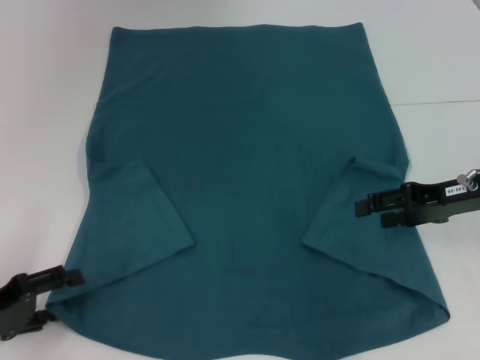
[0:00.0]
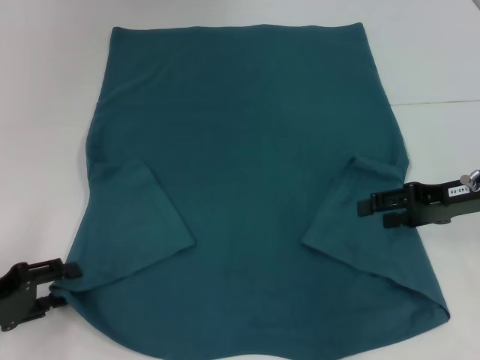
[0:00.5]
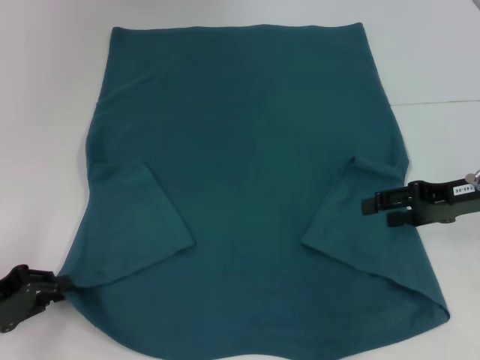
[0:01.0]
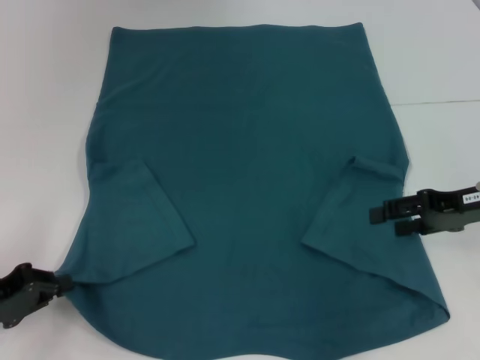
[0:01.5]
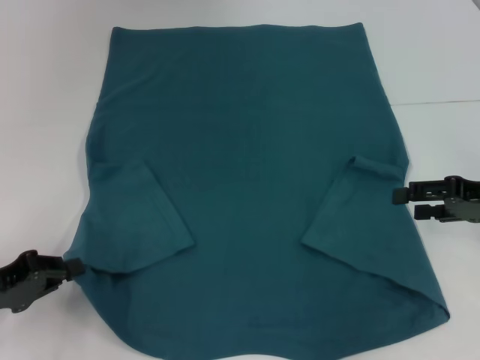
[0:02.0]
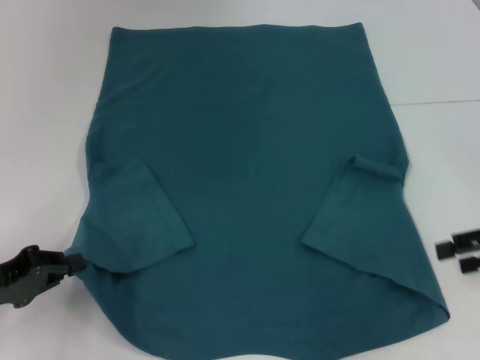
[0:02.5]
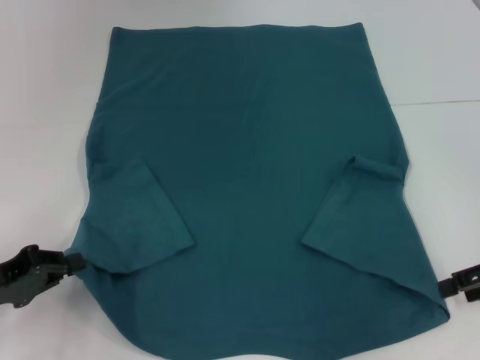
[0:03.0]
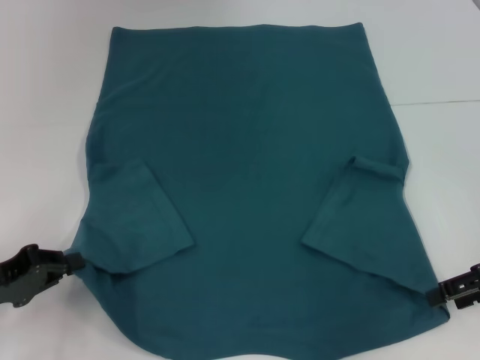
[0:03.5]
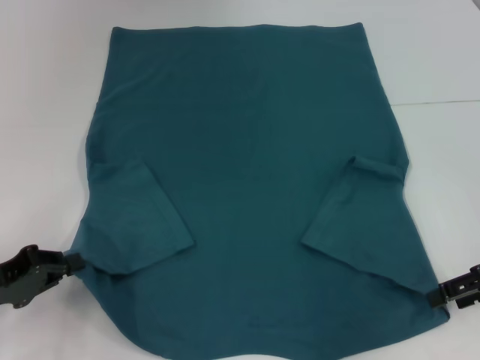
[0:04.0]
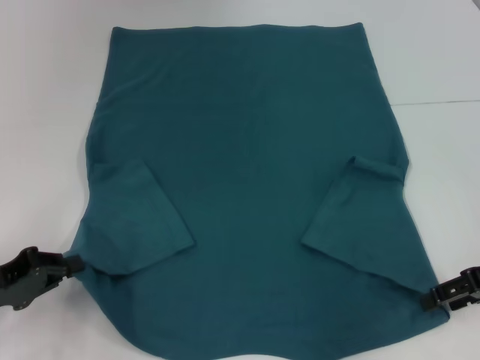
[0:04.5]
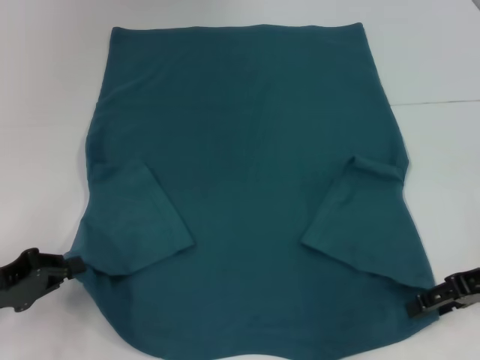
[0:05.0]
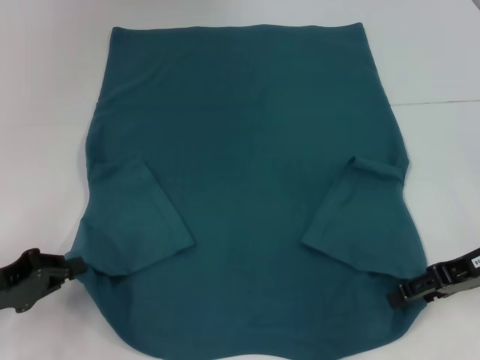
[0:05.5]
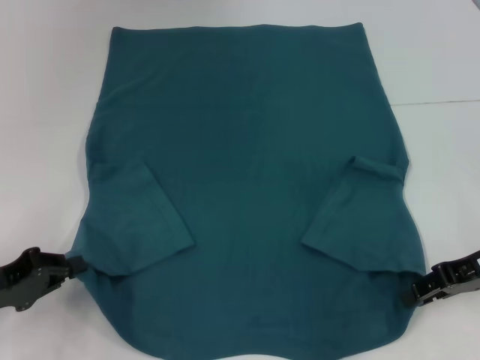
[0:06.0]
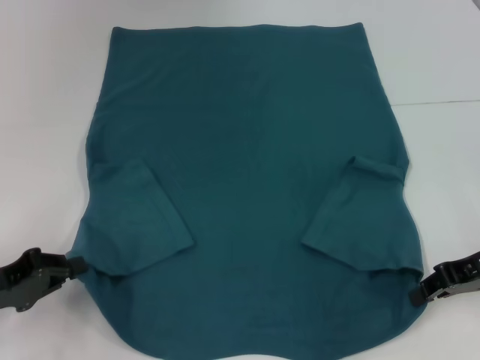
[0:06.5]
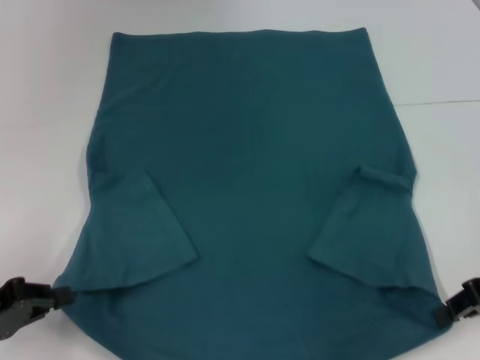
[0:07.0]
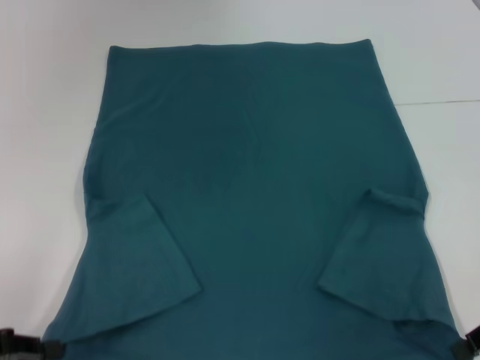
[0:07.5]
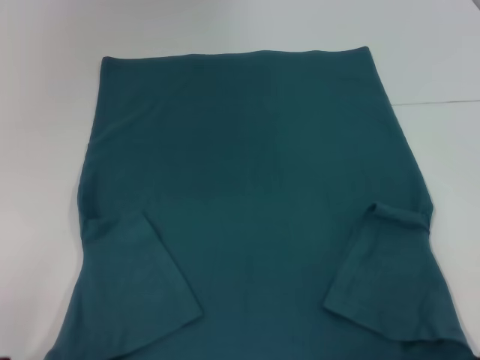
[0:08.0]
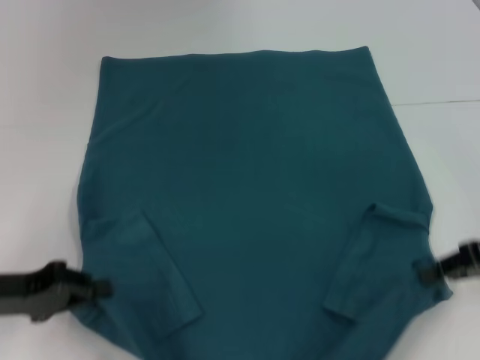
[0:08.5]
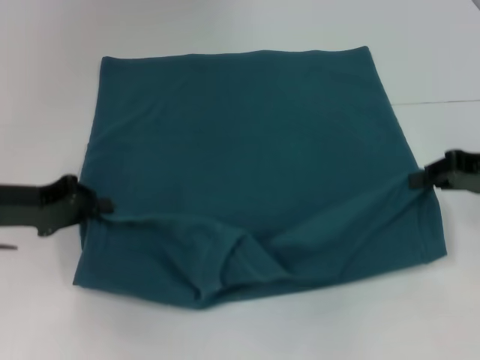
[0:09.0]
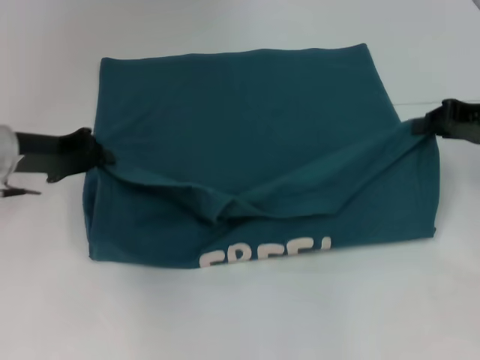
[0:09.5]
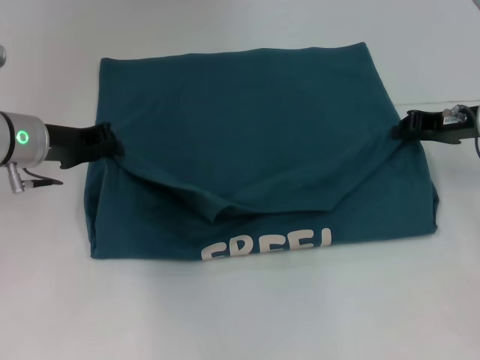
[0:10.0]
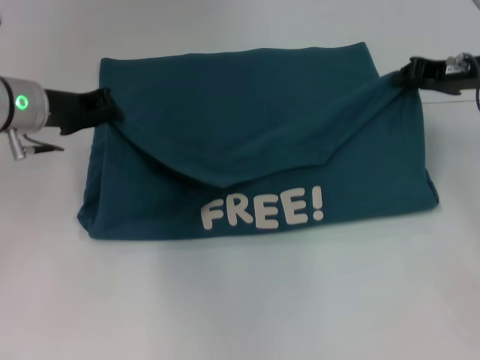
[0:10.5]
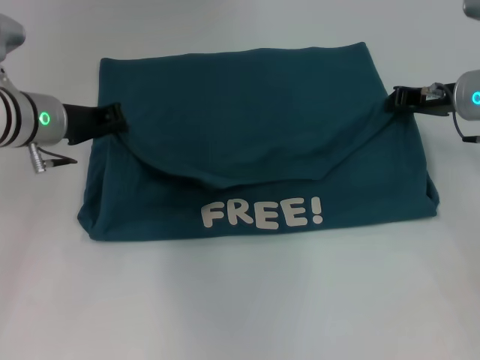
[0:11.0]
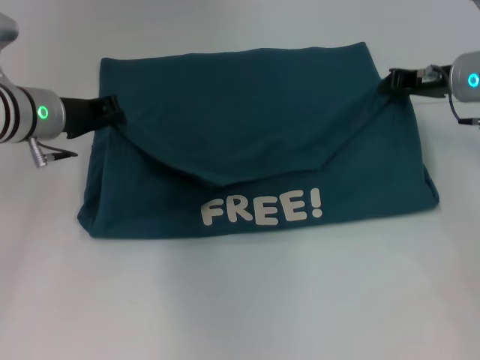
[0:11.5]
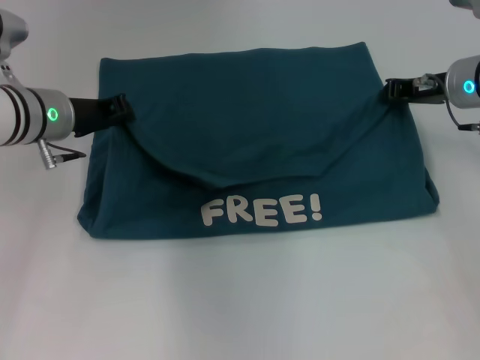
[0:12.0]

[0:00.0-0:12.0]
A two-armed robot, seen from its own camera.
Step, 0:01.5 to 0:06.5: Grab the bottom right corner with your right hand.
0:00.0 to 0:02.0: The left gripper closes up.
0:04.0 to 0:06.0: The right gripper closes its fingers.
0:06.0 to 0:08.0: Both grippers move backward, some 5 cm. The right gripper closes its fingers.
0:08.0 to 0:10.0: The right gripper moves forward, approximately 15 cm. Meanwhile the left gripper moves forward and to the right, about 25 cm.
0:10.0 to 0:12.0: The right gripper changes place by roughly 5 cm.

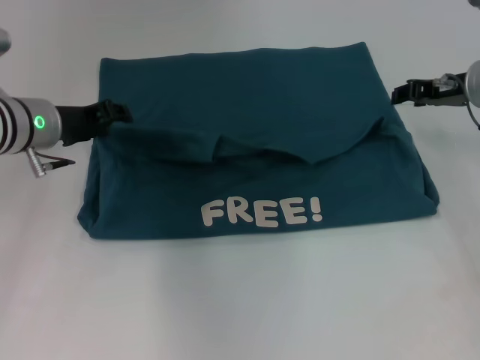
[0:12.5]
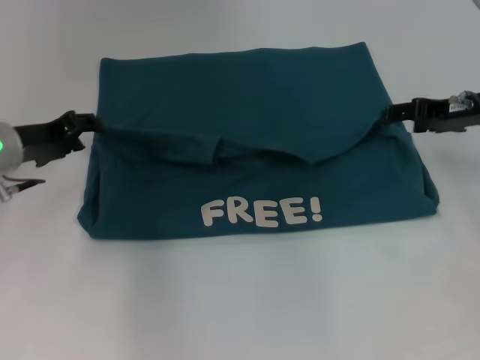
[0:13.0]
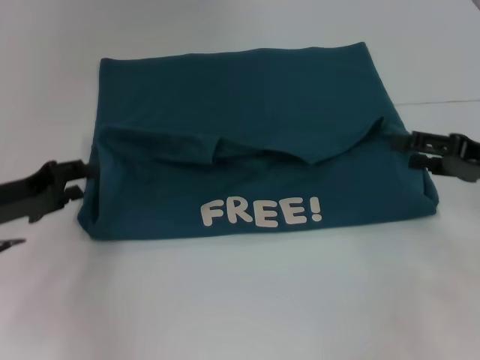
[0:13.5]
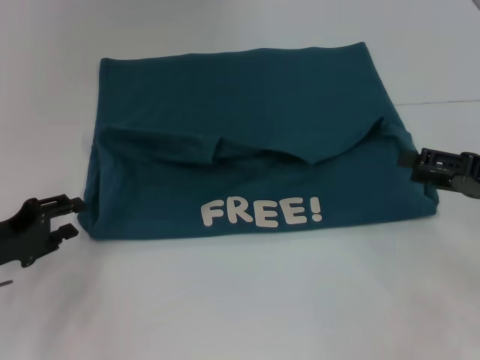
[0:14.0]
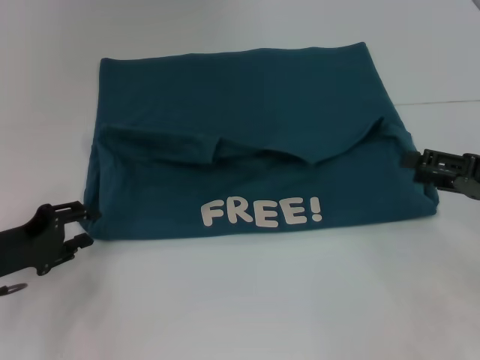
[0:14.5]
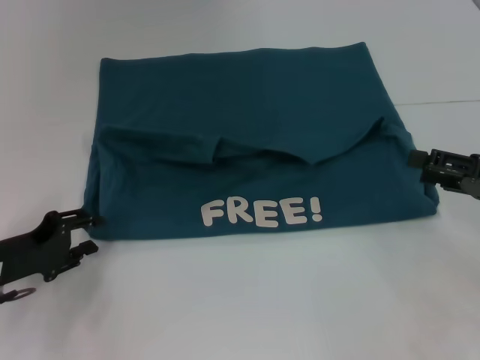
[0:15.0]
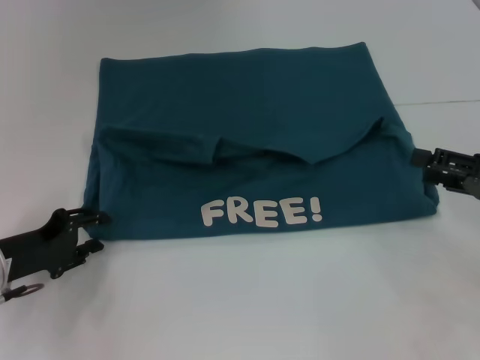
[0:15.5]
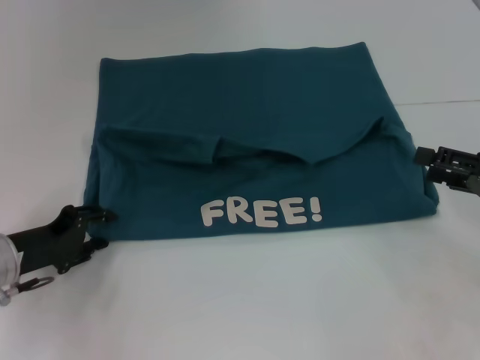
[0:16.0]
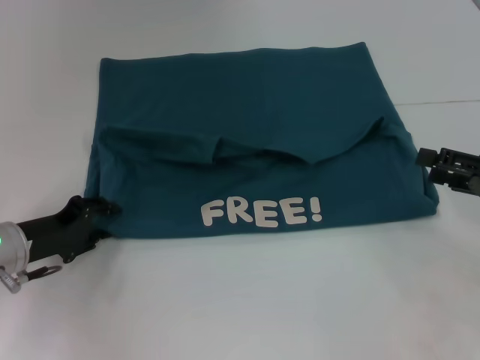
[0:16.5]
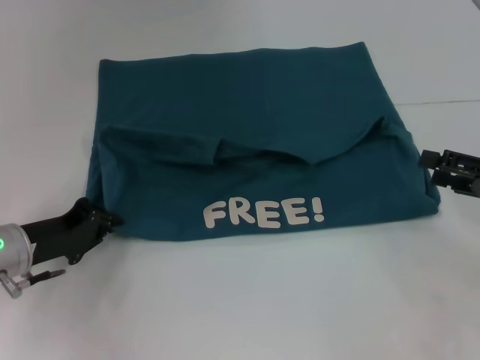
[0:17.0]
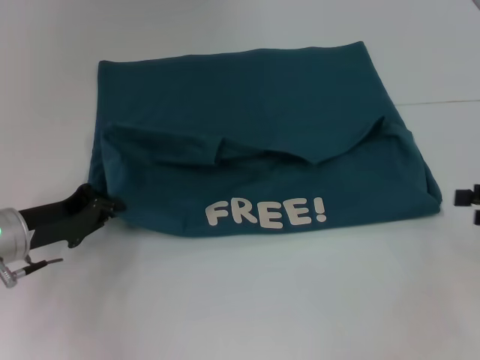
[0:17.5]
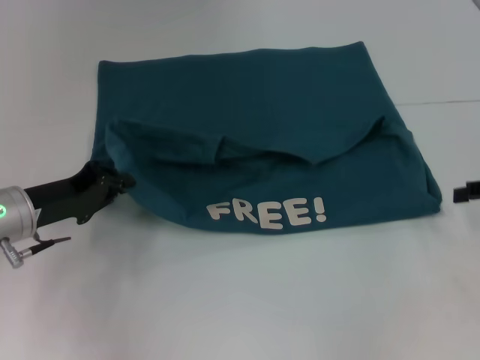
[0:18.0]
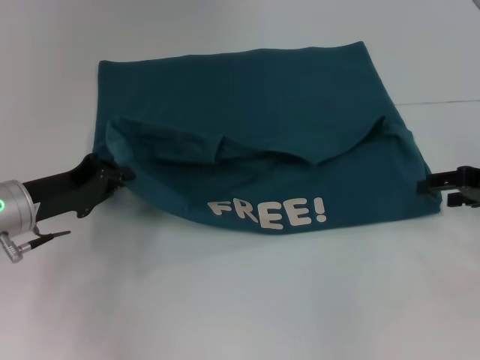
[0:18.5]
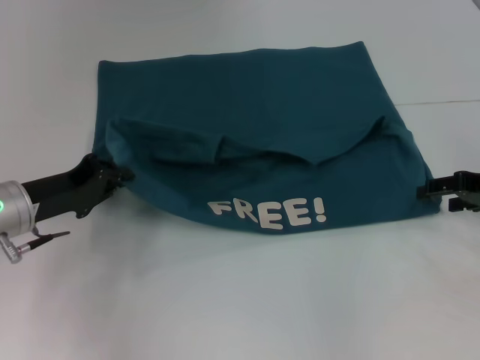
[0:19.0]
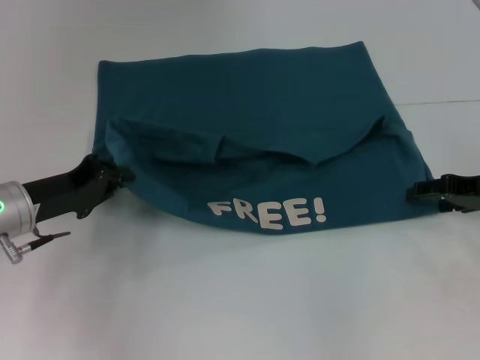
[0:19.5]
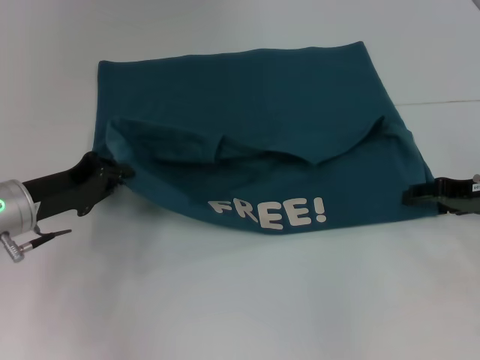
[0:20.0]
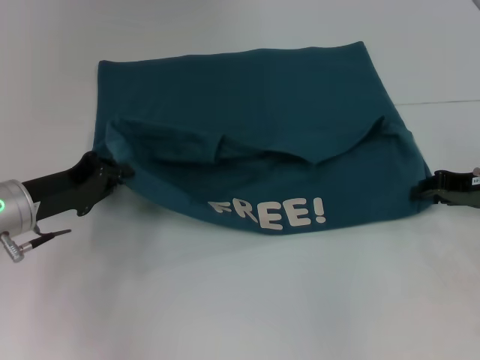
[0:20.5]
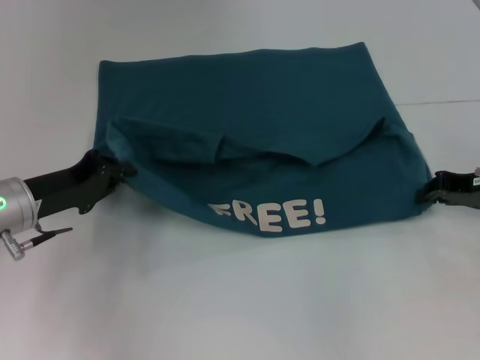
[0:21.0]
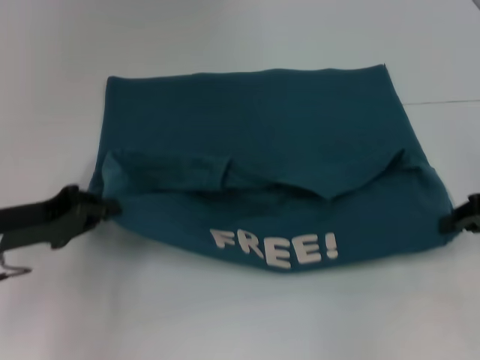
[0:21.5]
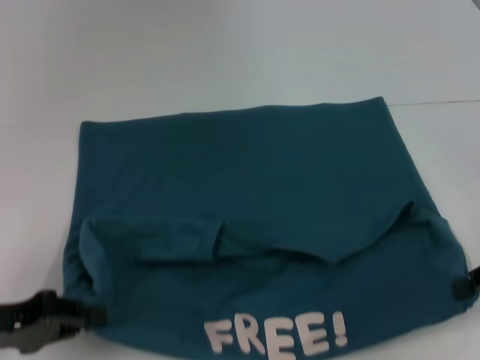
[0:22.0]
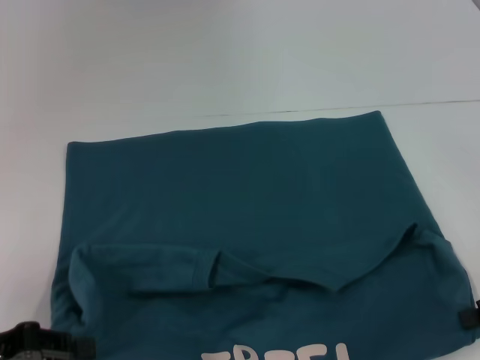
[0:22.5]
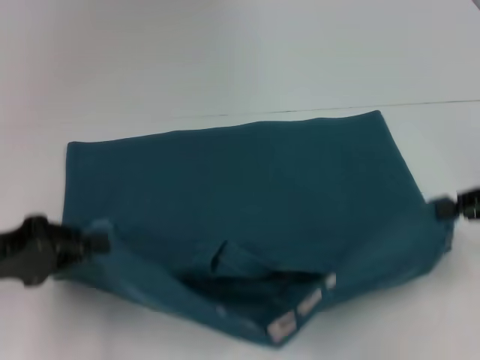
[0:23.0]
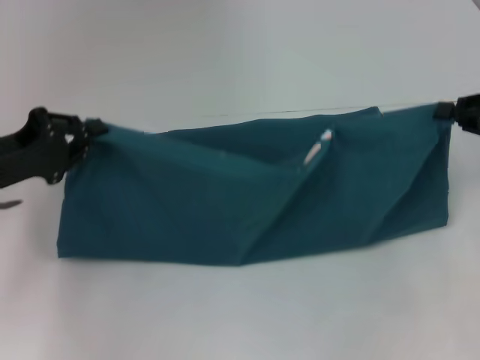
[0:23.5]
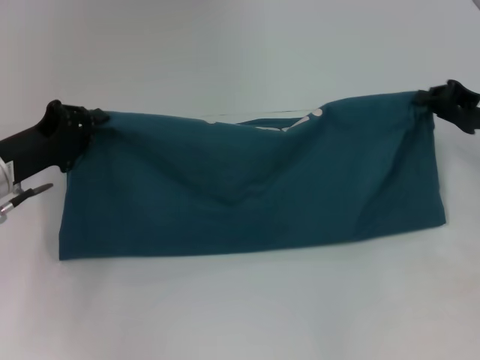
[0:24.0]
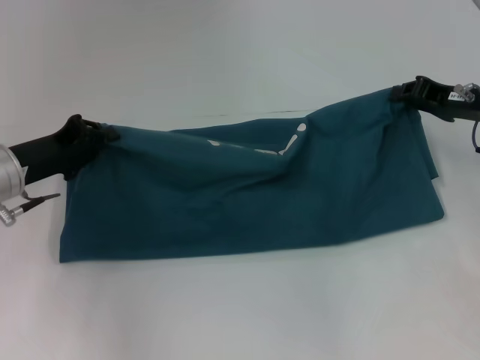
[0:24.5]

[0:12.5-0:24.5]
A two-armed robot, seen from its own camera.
Step, 0:13.0 to 0:22.0: Pull the clothes with your left hand.
Step, 0:13.0 to 0:22.0: Pull the clothes with your right hand.
0:12.5 to 0:14.5: The right gripper goes approximately 15 cm backward, and opens up, while the left gripper heads backward, to the left and downward, covering about 15 cm.
0:14.5 to 0:16.5: There are only small adjustments of the grippers.
0:16.5 to 0:18.5: The right gripper shifts approximately 5 cm forward. The left gripper closes up.
0:18.5 to 0:20.5: There are only small adjustments of the grippers.
0:20.5 to 0:22.5: The right gripper goes some 10 cm backward, and closes. Meanwhile the left gripper travels backward and to the left by some 15 cm.
0:22.5 to 0:24.5: The right gripper travels forward and to the left by about 15 cm. The left gripper travels forward by roughly 15 cm.

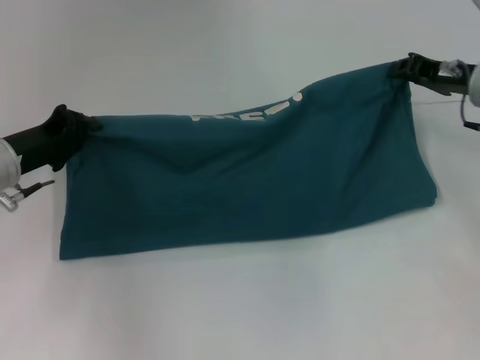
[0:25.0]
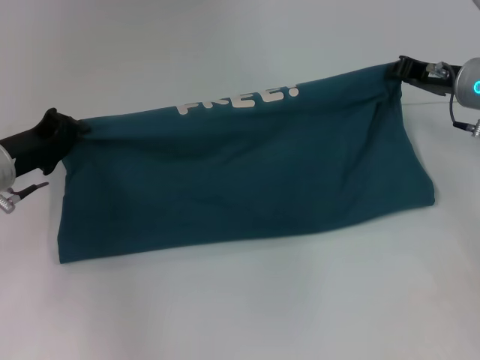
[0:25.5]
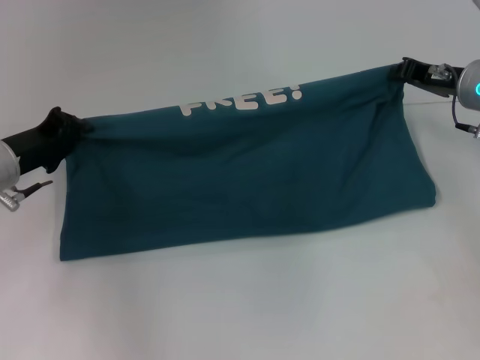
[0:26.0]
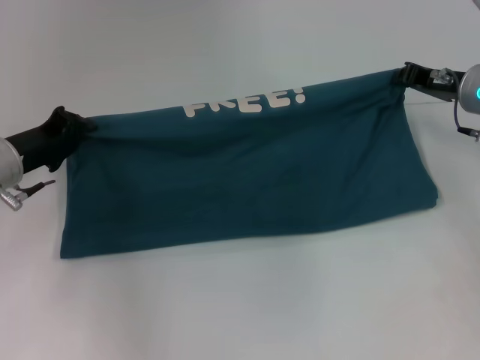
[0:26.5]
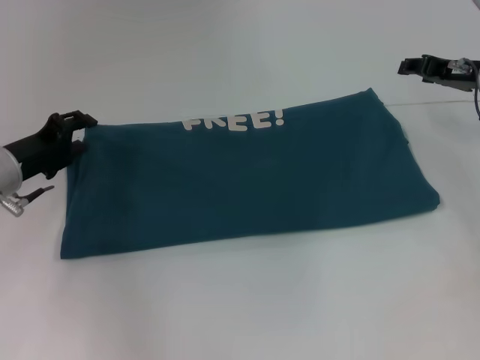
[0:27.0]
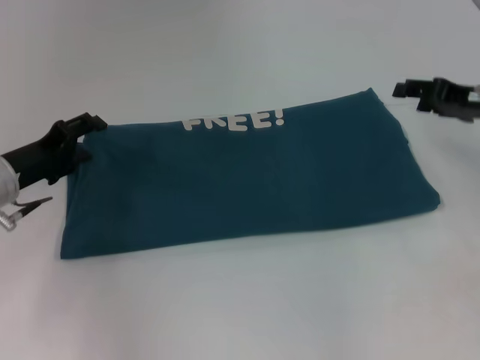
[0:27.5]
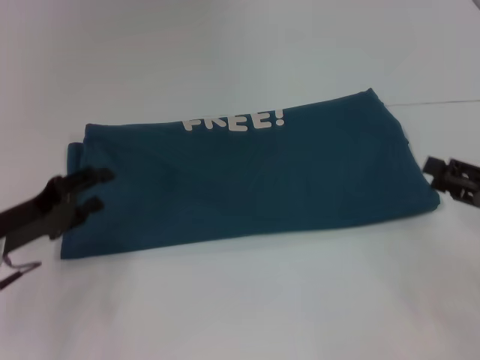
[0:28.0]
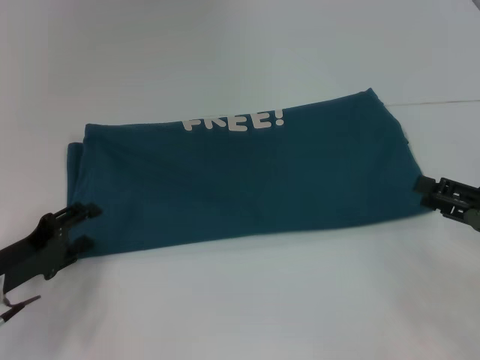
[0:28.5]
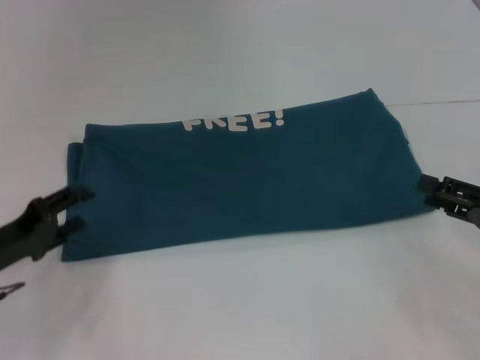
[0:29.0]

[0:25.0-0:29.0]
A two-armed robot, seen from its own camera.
0:25.0 to 0:27.0: The grippers move only a little.
0:27.0 to 0:29.0: The left gripper moves backward, some 10 cm, and opens up. Meanwhile the right gripper moves backward, approximately 20 cm, and opens its fingers.
